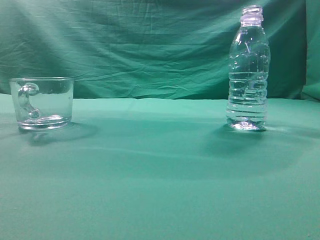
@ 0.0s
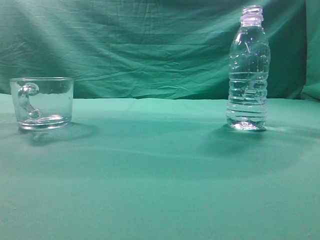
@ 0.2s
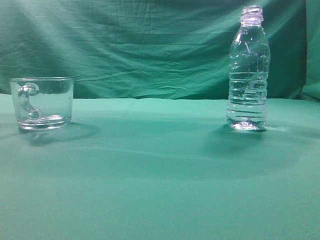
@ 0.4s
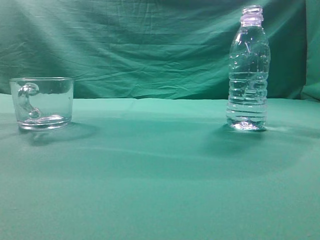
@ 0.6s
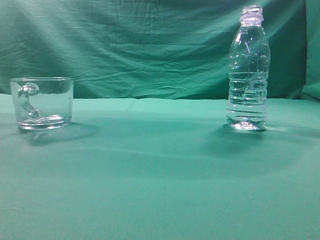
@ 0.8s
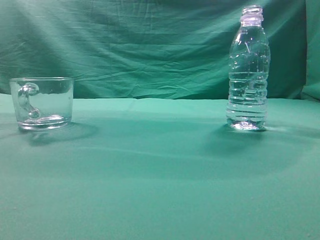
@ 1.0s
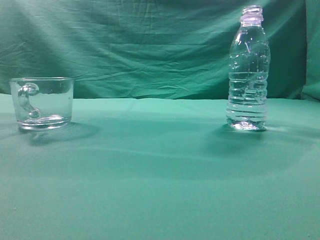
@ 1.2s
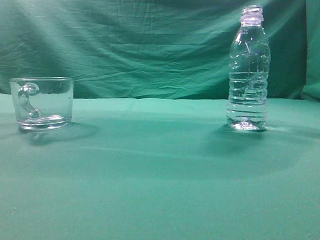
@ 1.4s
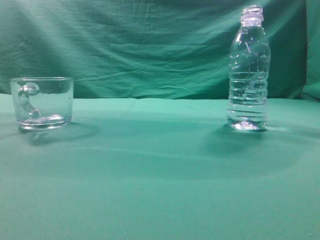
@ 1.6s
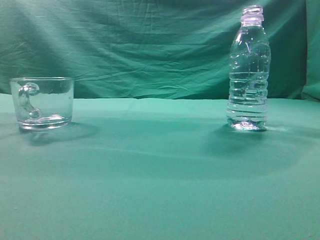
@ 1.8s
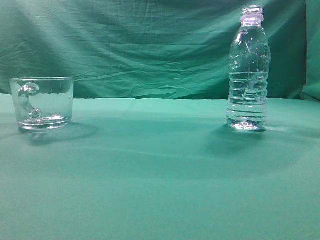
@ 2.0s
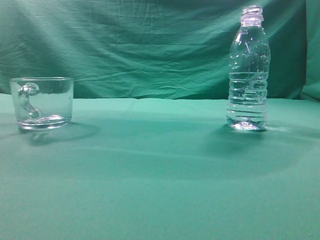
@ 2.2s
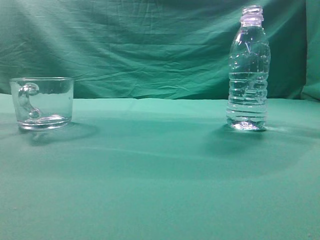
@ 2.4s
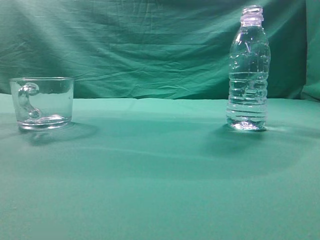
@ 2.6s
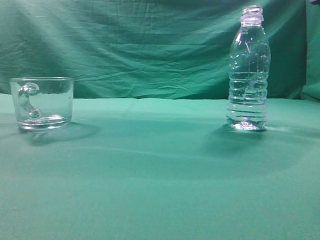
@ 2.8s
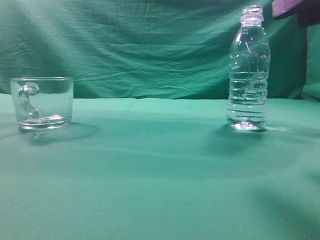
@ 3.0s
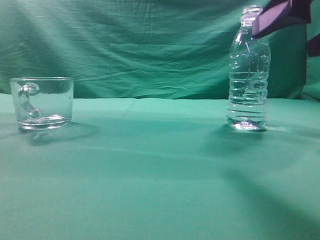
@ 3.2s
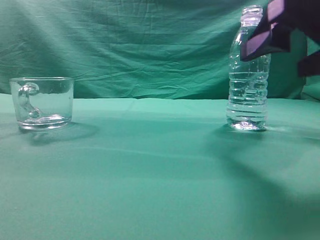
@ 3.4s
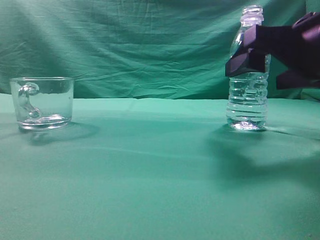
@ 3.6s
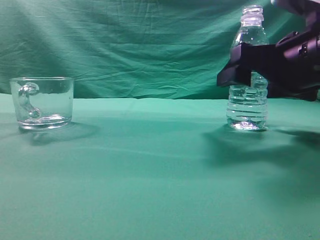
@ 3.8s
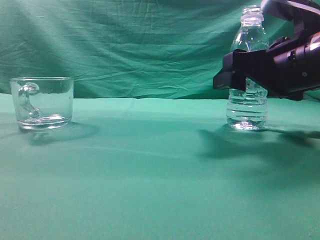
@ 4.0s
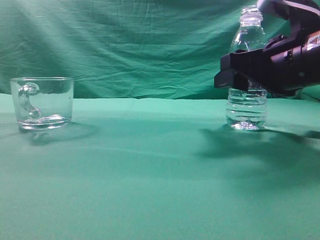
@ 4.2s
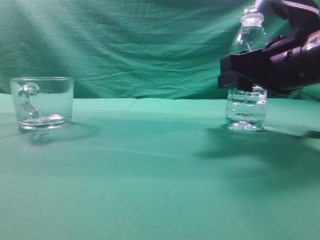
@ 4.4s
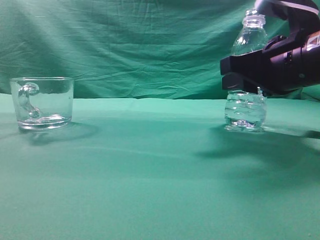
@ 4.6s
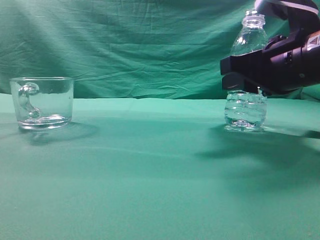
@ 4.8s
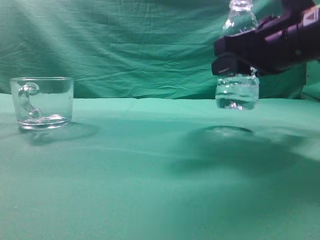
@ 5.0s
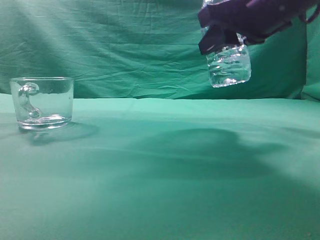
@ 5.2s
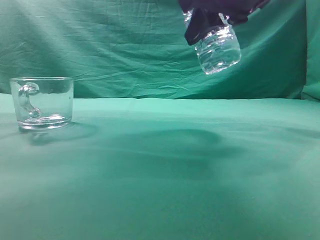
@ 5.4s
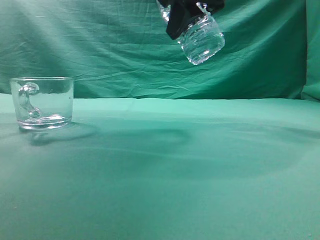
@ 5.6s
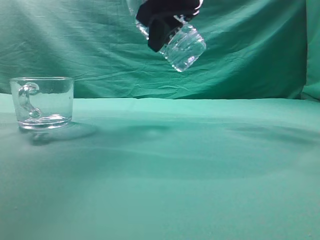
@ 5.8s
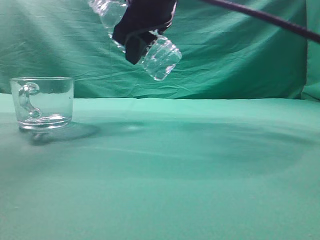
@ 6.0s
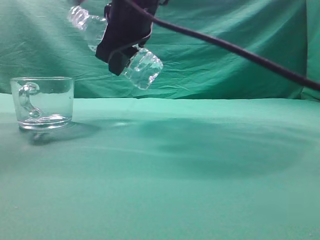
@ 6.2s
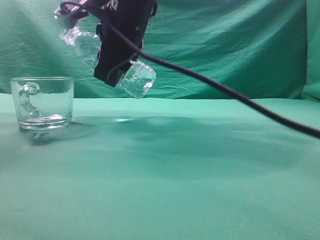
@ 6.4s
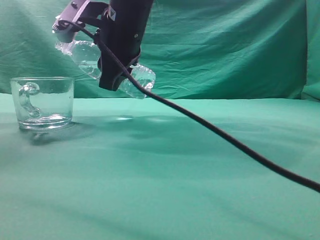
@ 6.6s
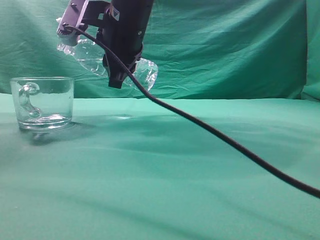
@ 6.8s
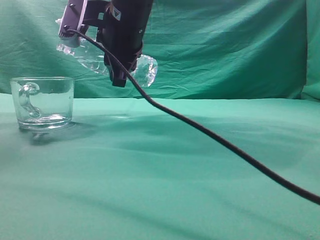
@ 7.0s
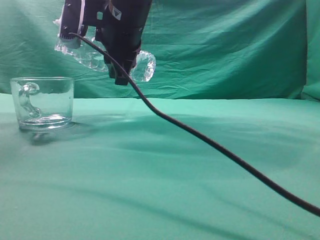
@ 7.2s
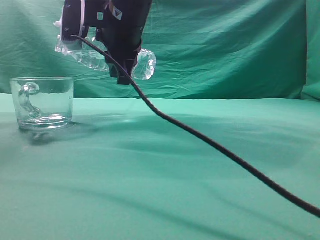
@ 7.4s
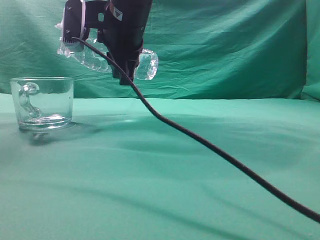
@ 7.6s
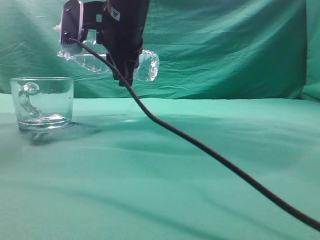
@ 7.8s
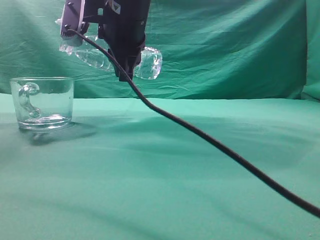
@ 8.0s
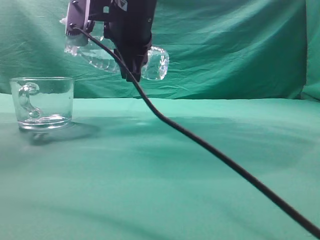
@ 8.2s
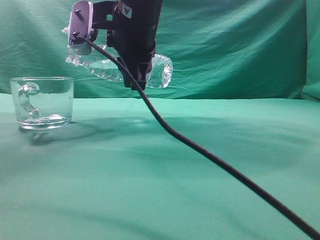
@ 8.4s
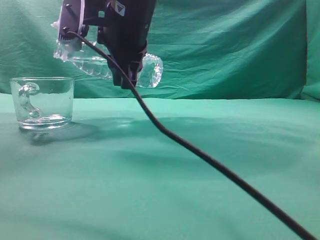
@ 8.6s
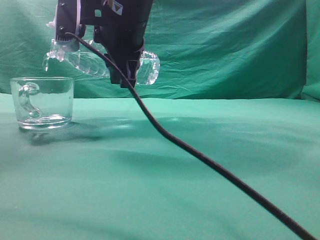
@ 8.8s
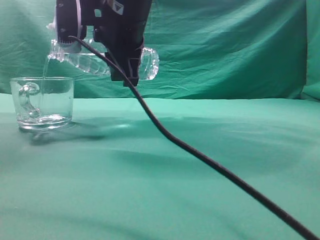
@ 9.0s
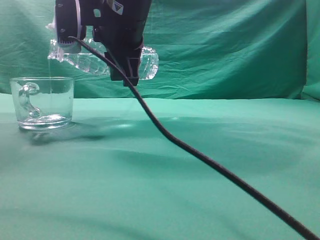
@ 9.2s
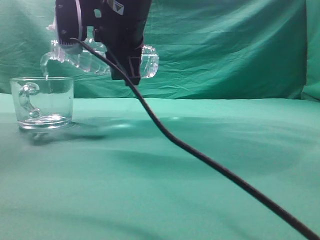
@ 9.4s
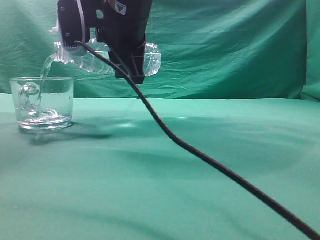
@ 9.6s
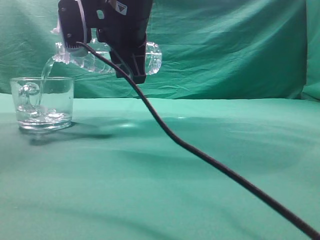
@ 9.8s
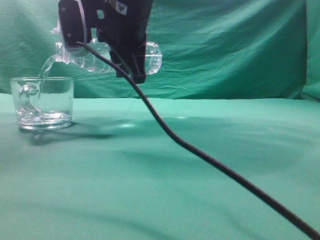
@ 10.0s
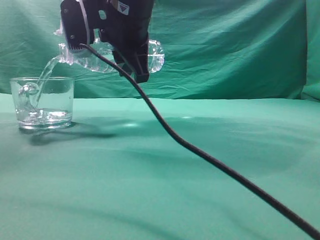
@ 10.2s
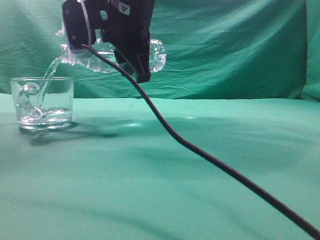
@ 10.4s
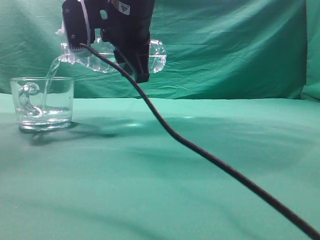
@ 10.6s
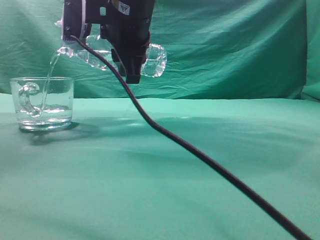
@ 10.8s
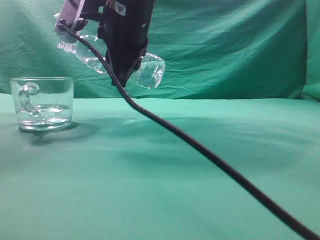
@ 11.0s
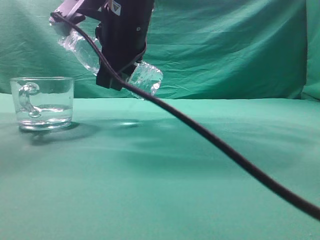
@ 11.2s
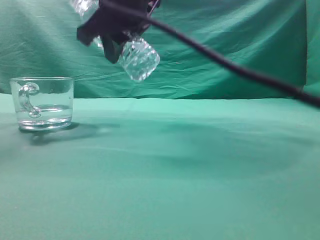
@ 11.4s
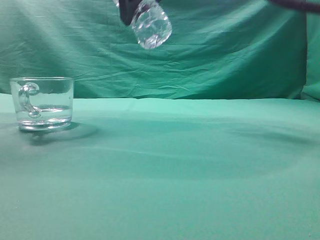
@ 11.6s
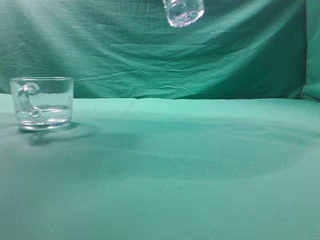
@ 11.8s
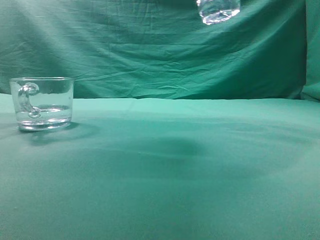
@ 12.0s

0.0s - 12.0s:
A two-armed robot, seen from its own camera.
Task of the whole recording: pick up the water bottle and pour the water in it into the glass.
Step, 0.0s - 5.0s: Grasp the mineral water bottle.
Step, 5.2s - 11.2s: Pour water into the teacup.
1.6s - 3.0s: The right gripper shifts roughly 15 cm forward and to the left, and opens.
3.0s - 4.4s: The right gripper travels forward and downward by approximately 15 cm, and opens, then closes again.
4.4s - 6.0s: The right gripper shifts about 20 cm to the left and upward.
6.0s - 7.6s: The right gripper changes place by some 5 cm.
7.6s - 10.4s: The grippers make only small movements.
10.4s - 12.0s: The right gripper heads to the right and upward, covering about 20 cm.

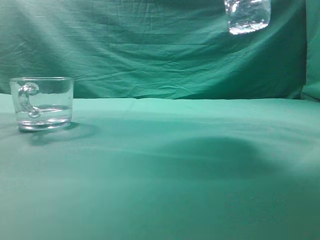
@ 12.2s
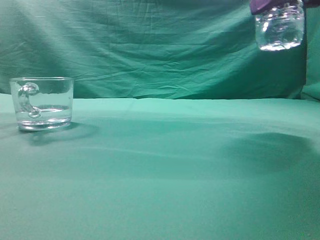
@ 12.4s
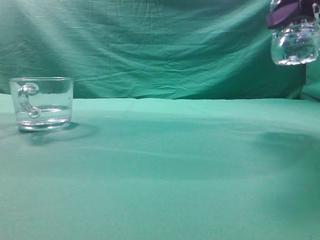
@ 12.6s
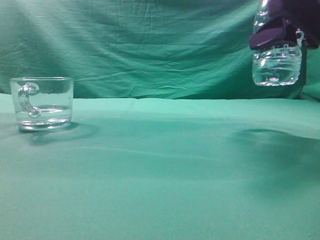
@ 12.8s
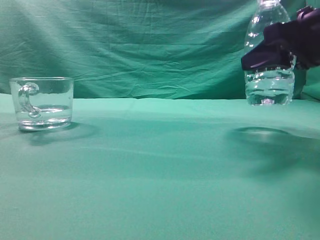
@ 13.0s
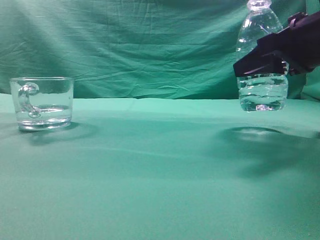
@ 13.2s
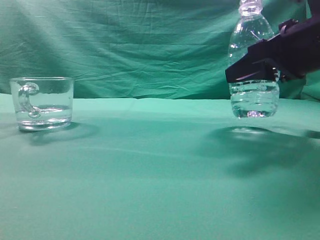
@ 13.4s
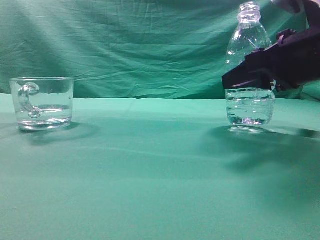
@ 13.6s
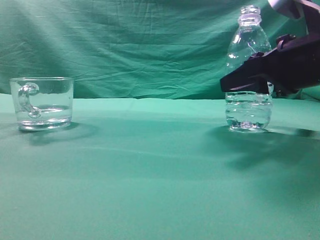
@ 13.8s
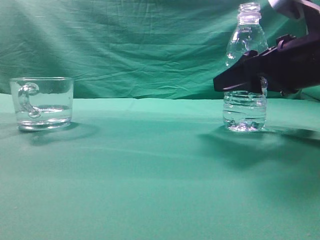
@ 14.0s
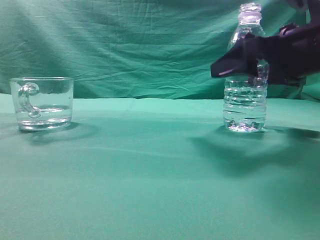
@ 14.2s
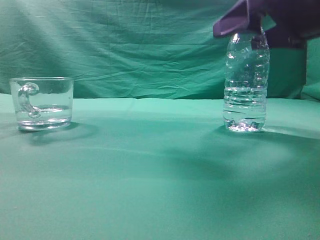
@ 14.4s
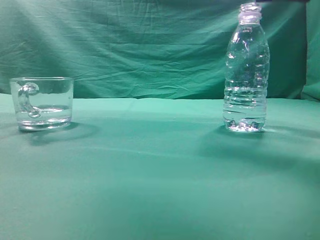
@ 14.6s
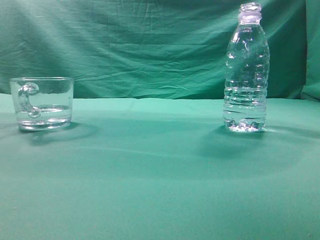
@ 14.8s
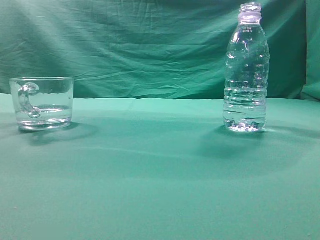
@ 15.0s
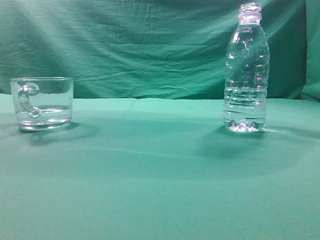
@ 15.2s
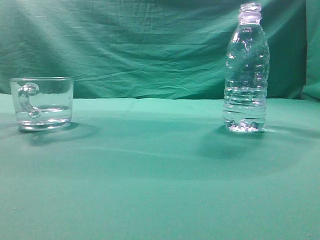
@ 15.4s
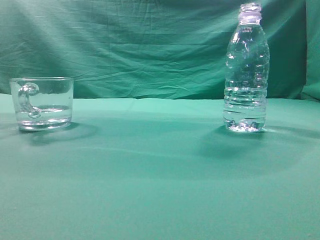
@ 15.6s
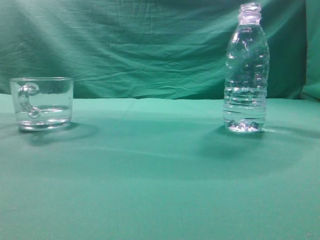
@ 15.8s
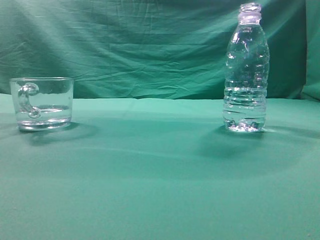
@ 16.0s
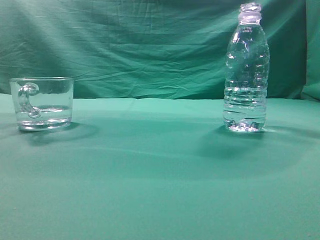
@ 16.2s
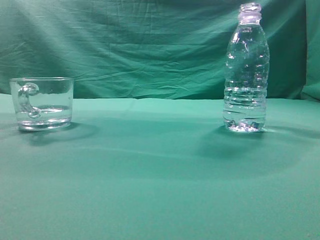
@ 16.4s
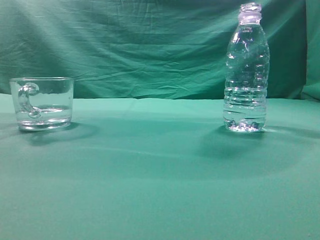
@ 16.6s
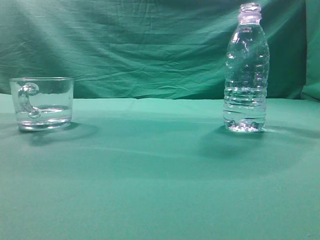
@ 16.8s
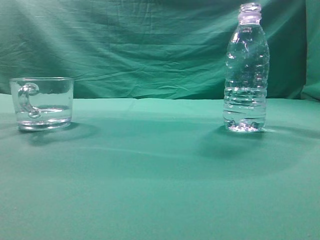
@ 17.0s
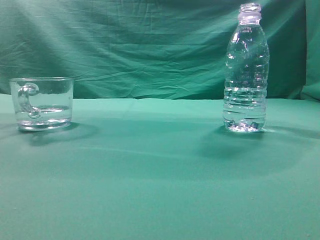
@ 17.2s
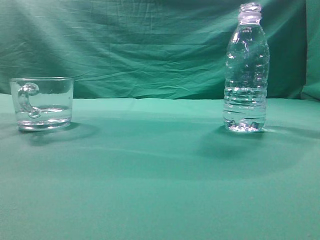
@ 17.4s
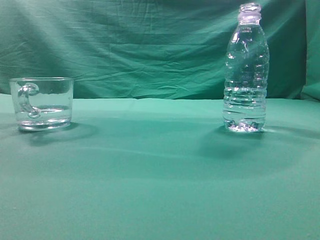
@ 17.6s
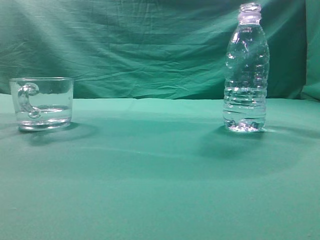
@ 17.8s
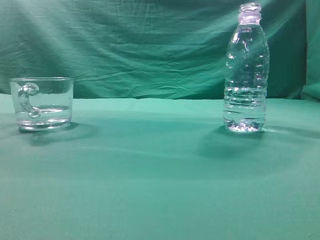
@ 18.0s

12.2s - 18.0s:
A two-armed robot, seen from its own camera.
Task of the whole recording: pick up the water bottle and pour the water in it into the glass.
12.2s - 13.6s: The right gripper heads downward, covering roughly 15 cm.
13.6s - 15.0s: The right gripper moves upward and backward, approximately 25 cm, and closes its fingers.
